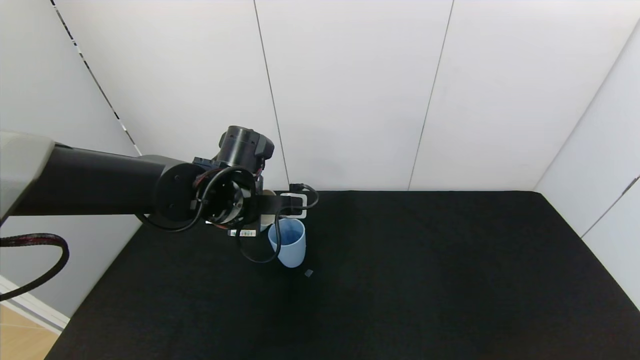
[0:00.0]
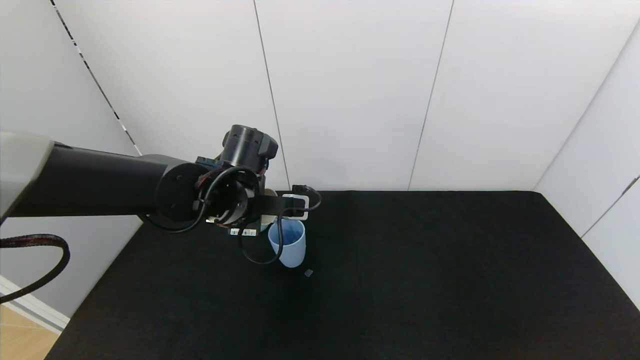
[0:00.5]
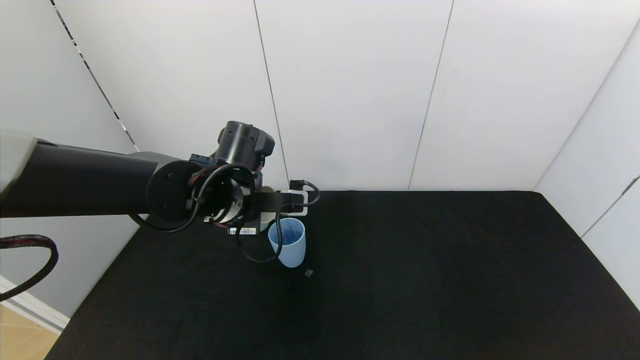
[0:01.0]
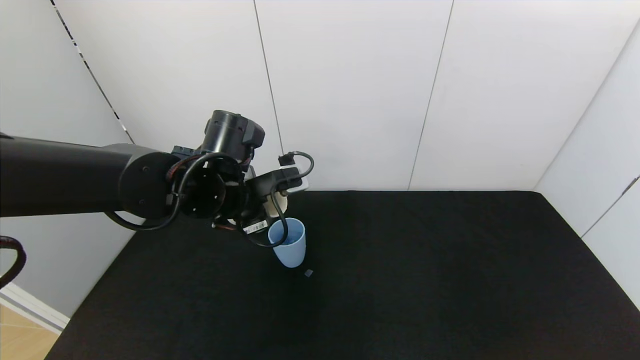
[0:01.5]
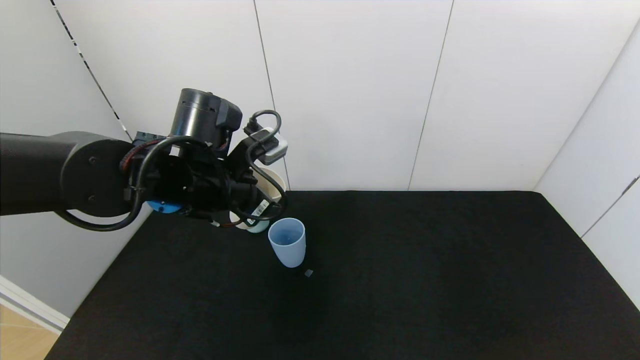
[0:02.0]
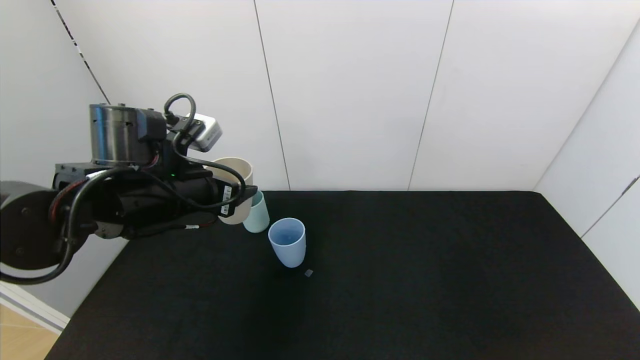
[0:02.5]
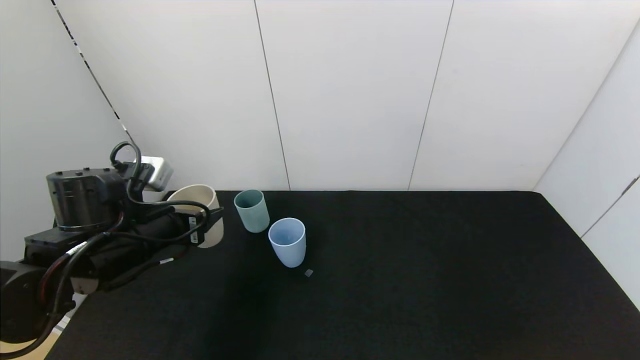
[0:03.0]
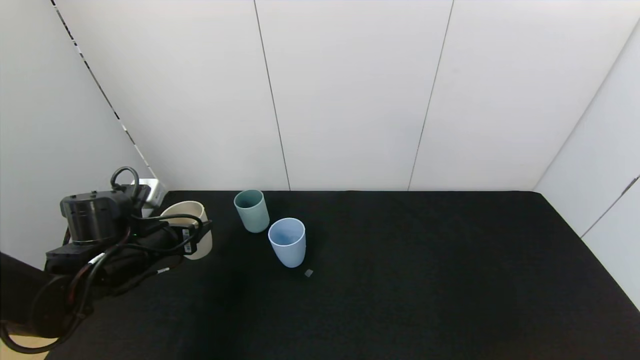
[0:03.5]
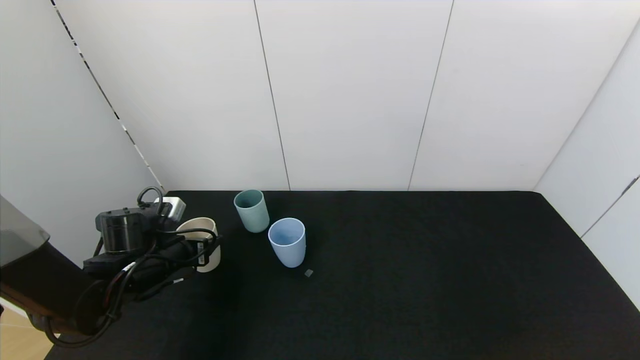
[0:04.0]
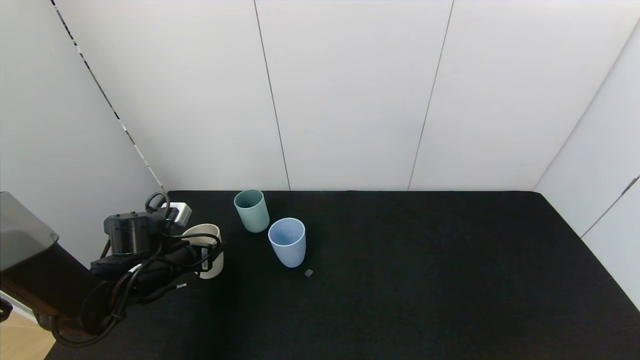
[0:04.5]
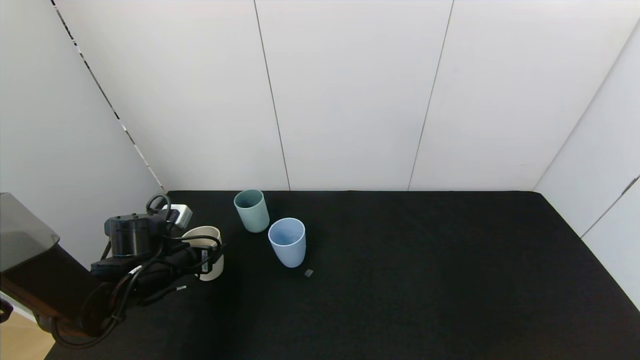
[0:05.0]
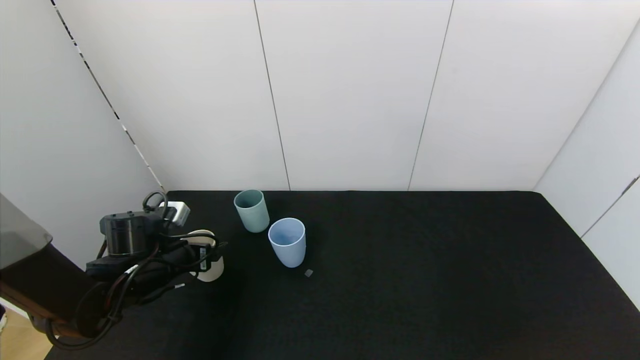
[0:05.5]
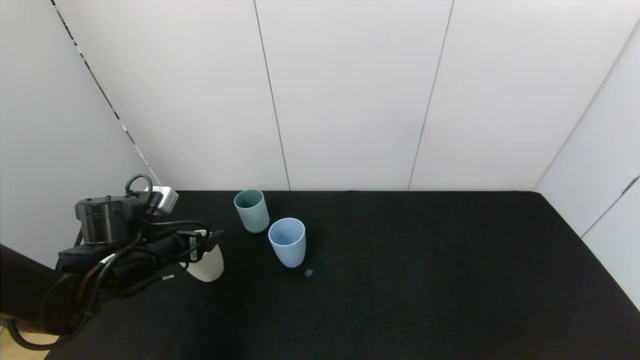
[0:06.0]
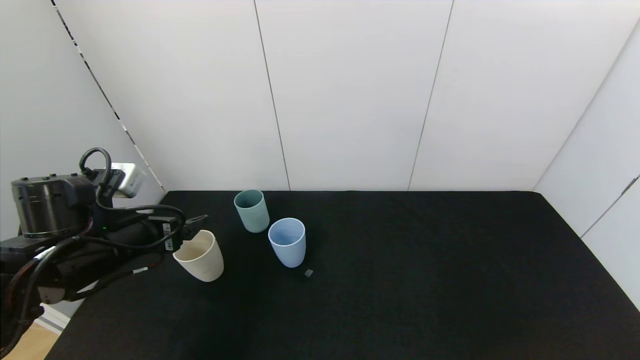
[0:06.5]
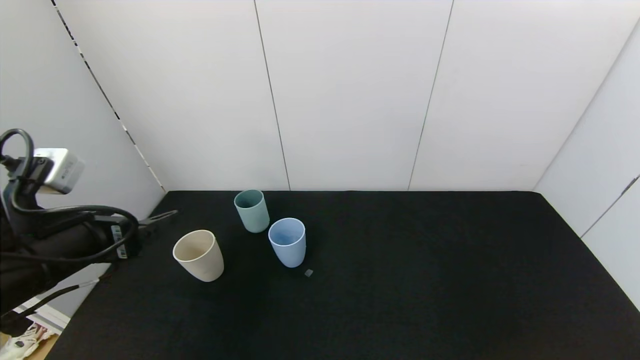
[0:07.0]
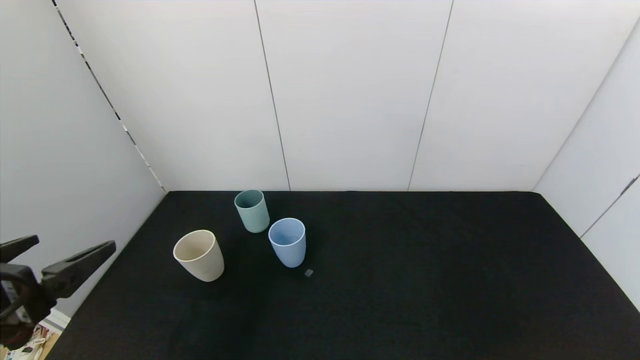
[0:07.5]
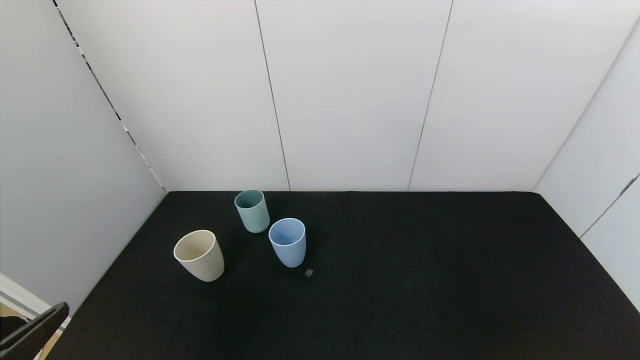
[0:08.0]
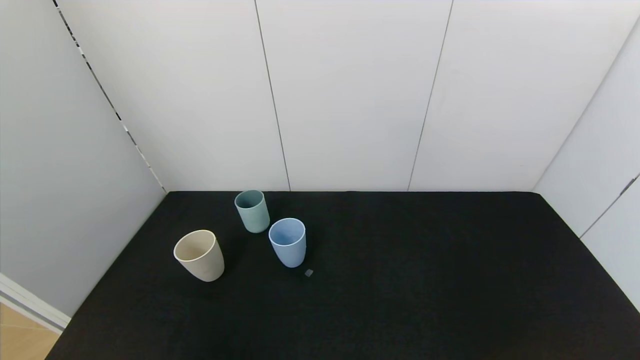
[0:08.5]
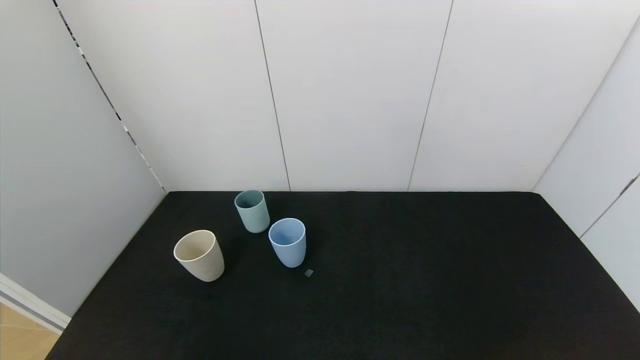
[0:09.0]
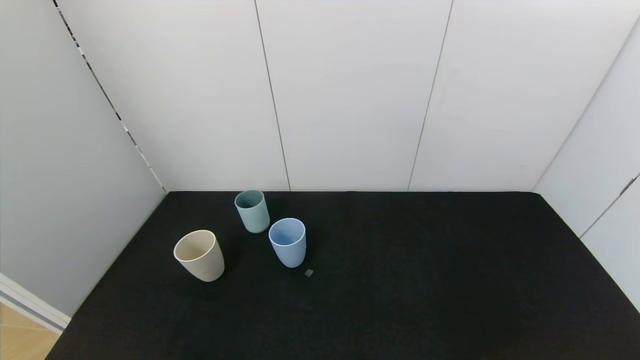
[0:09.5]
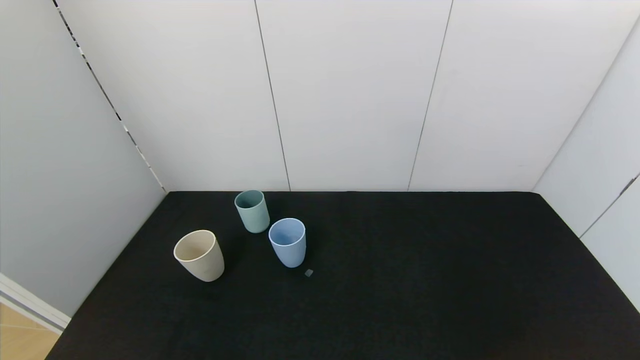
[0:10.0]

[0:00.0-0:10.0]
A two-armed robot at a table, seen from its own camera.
Task of the whole recording: use the gripper to pour the water into the other two cups on black table.
Step, 0:00.0 to 0:02.0: Pour water from white cup to blue cup with the left gripper.
Step, 0:02.5 to 0:07.0: Place the white cup with the left gripper.
0:00.0 to 0:02.0: The left gripper moves approximately 5 cm.
0:02.0 to 0:04.0: The left gripper moves downward and to the left, some 20 cm.
0:04.0 to 0:06.0: The left gripper opens.
0:06.0 to 0:08.0: The left gripper goes approximately 25 cm backward.
0:08.0 to 0:10.0: The left gripper moves downward and backward, roughly 15 cm.
